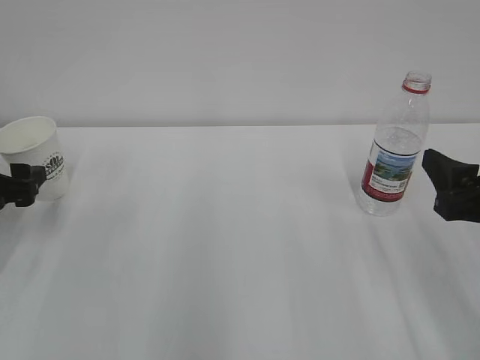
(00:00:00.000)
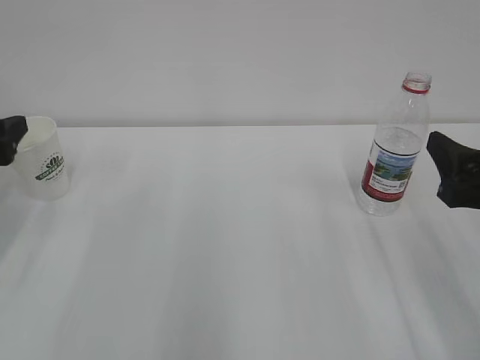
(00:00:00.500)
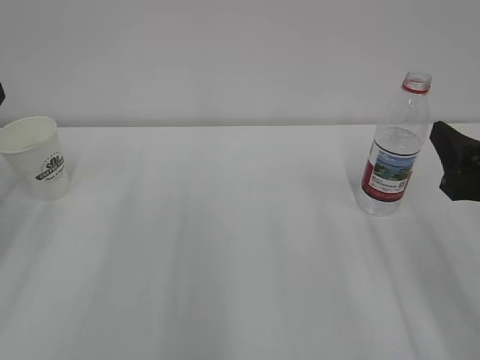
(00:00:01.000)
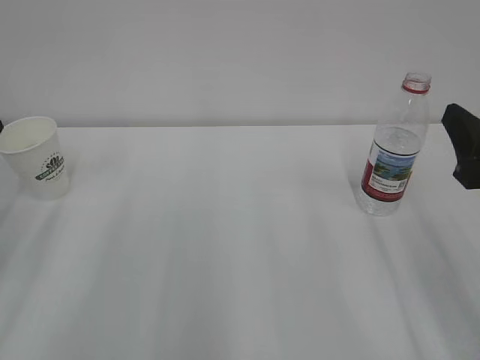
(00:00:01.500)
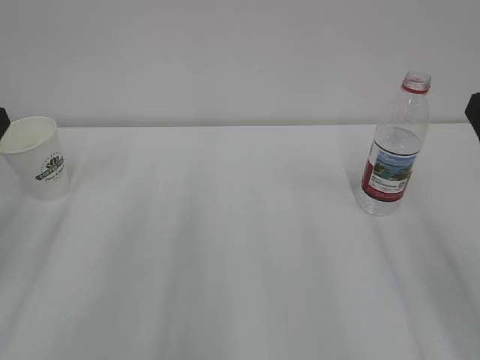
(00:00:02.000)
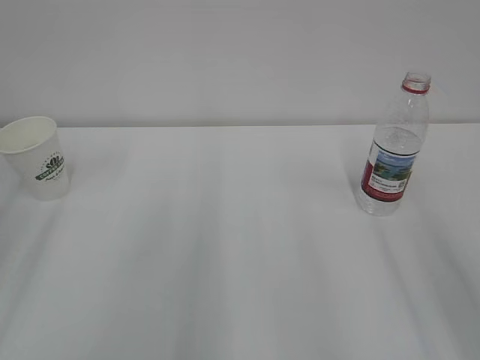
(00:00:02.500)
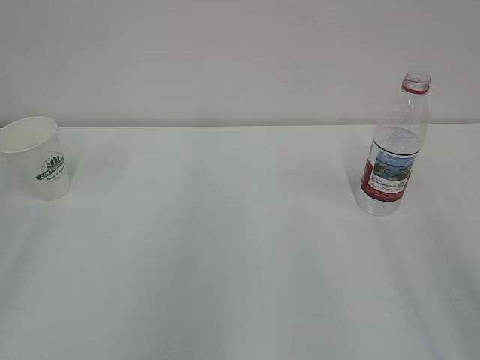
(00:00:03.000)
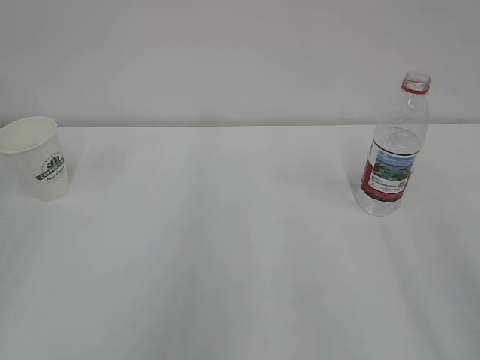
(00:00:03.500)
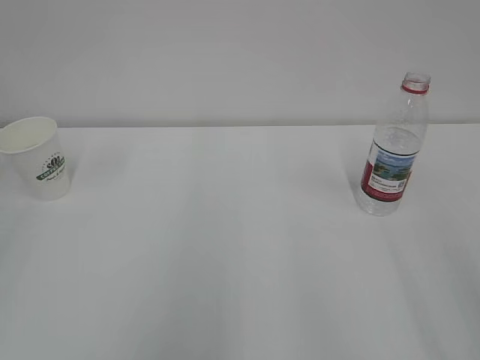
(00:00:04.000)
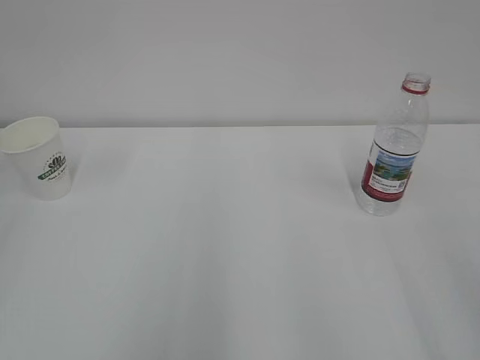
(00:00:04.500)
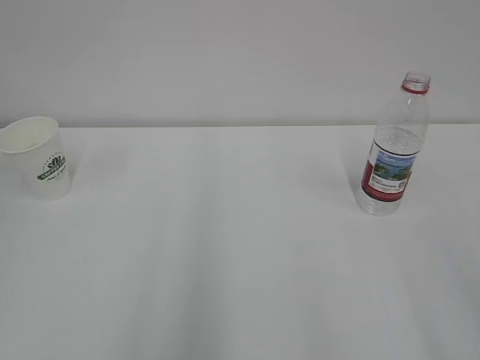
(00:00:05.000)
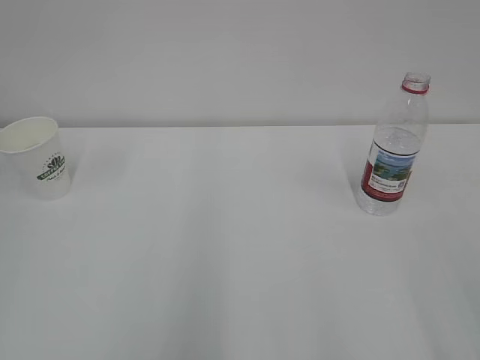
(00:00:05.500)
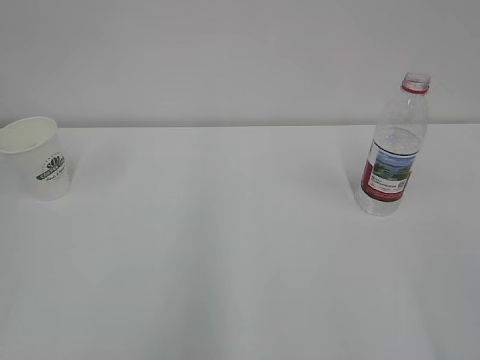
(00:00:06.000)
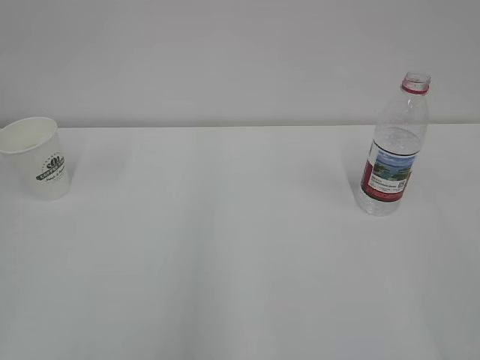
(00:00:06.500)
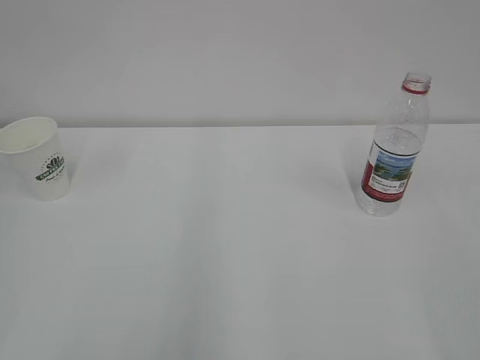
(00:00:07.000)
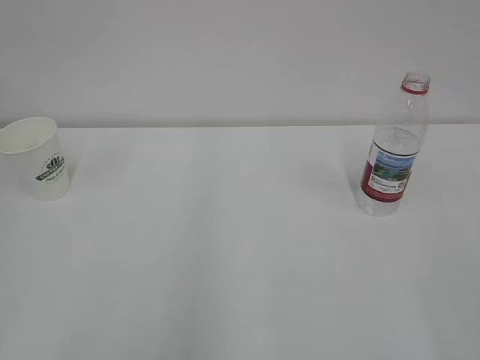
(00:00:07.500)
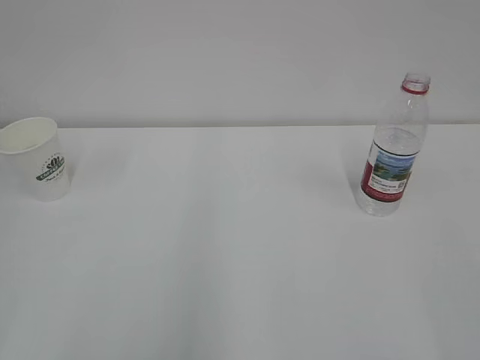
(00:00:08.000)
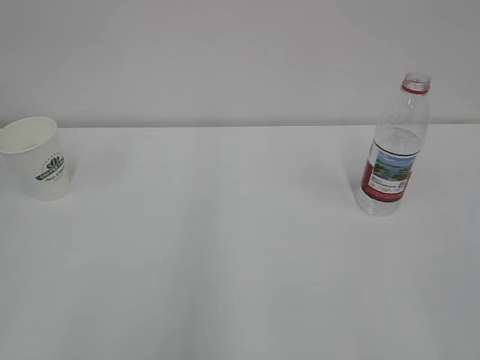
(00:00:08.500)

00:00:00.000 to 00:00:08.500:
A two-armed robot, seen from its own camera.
00:00:00.000 to 00:00:02.000: The left gripper shifts about 10 cm backward and upward, and closes its fingers. The right gripper heads upward, covering some 5 cm.
